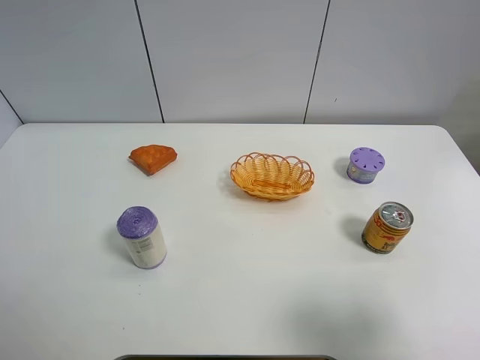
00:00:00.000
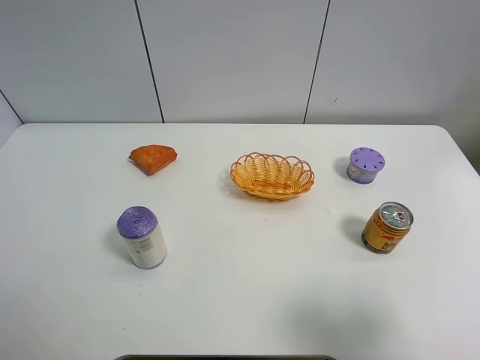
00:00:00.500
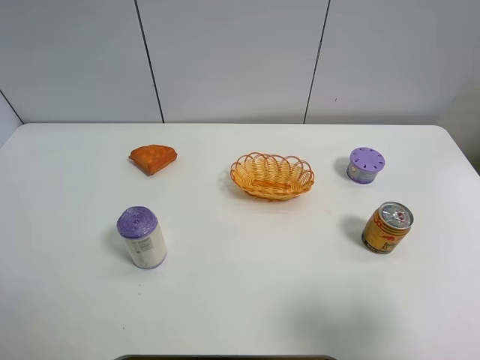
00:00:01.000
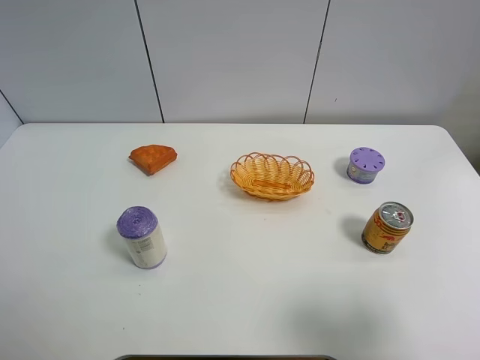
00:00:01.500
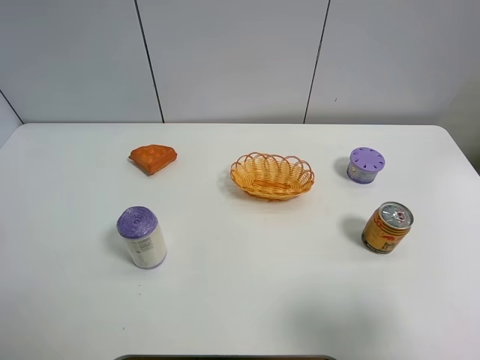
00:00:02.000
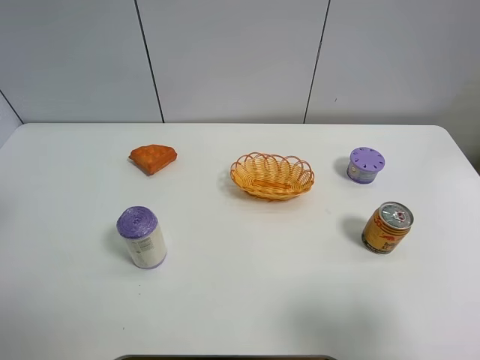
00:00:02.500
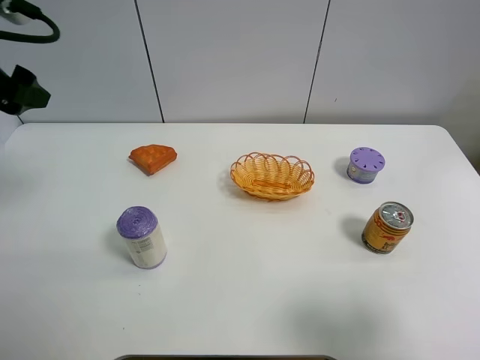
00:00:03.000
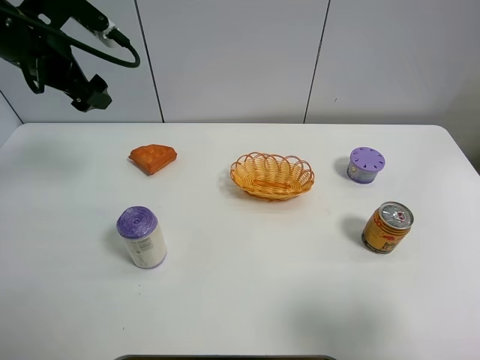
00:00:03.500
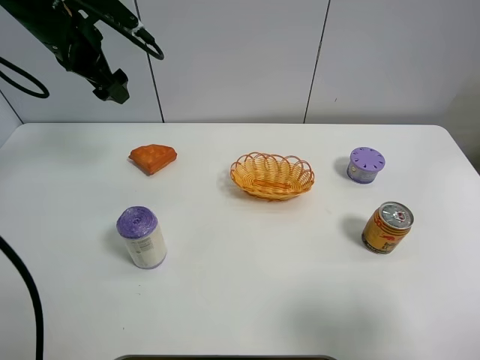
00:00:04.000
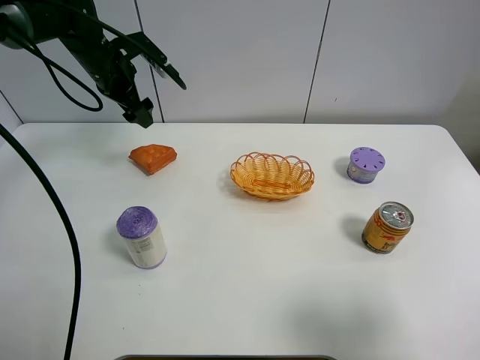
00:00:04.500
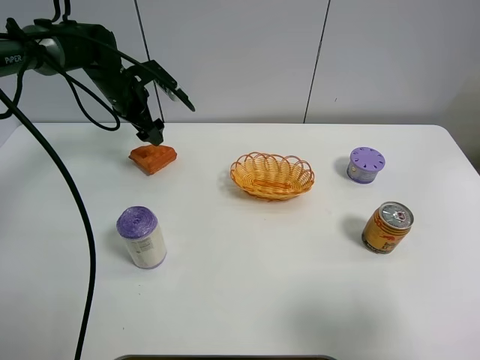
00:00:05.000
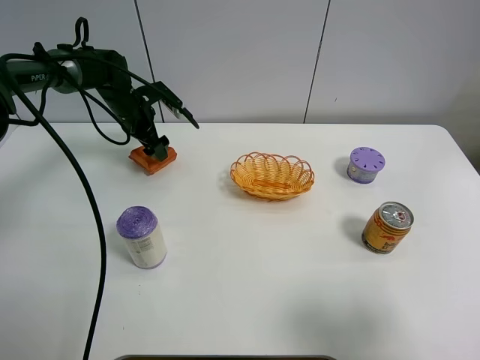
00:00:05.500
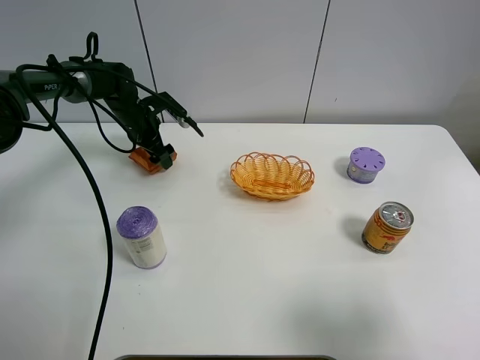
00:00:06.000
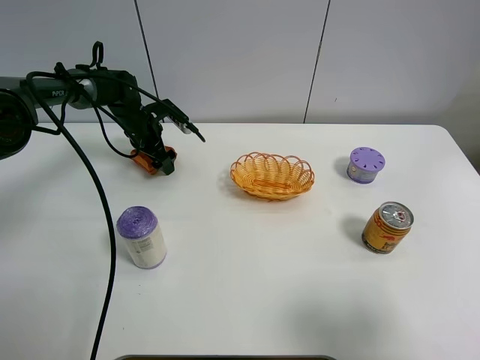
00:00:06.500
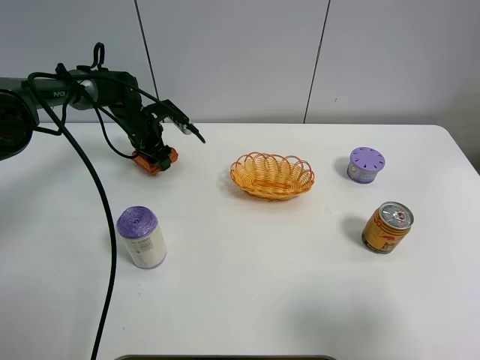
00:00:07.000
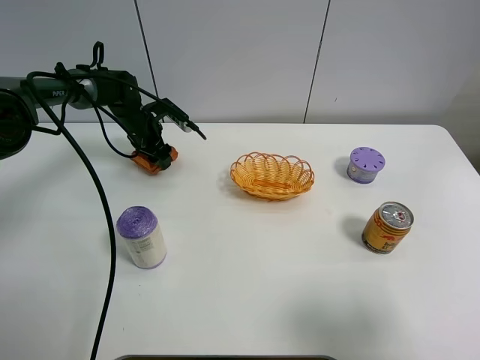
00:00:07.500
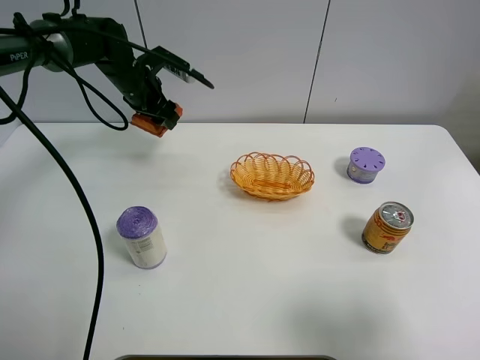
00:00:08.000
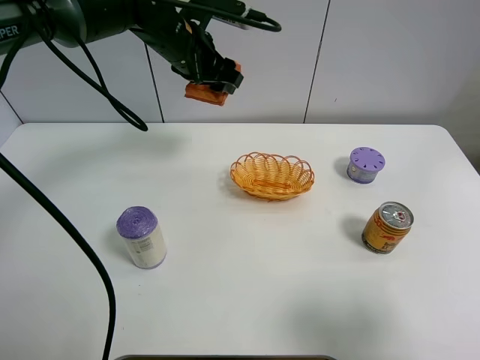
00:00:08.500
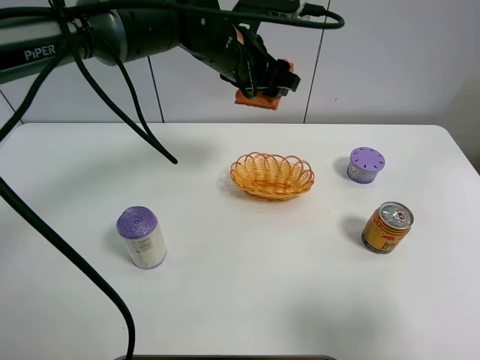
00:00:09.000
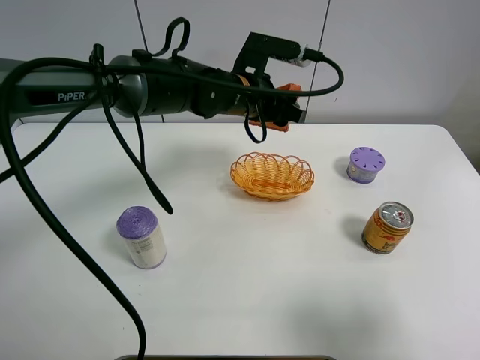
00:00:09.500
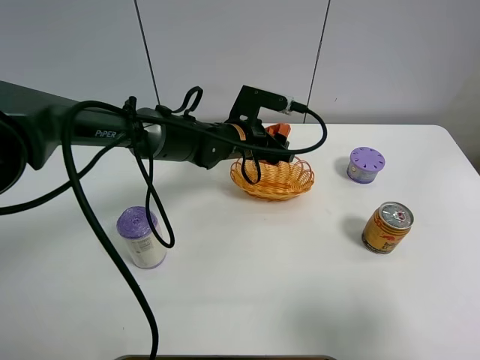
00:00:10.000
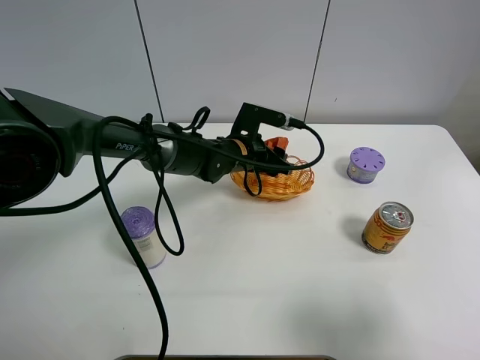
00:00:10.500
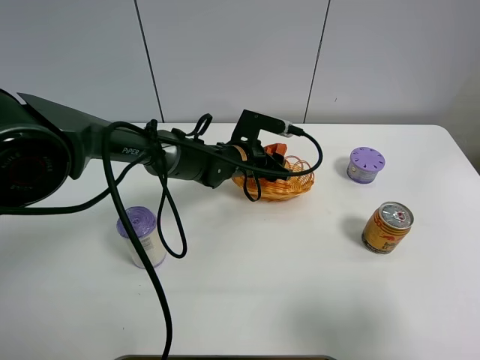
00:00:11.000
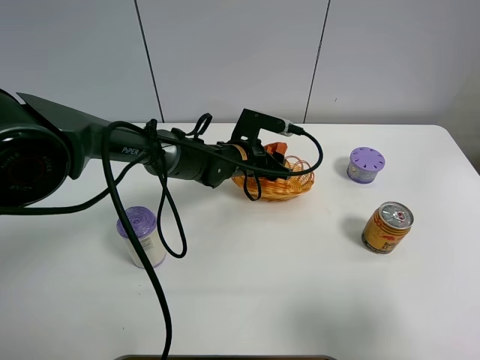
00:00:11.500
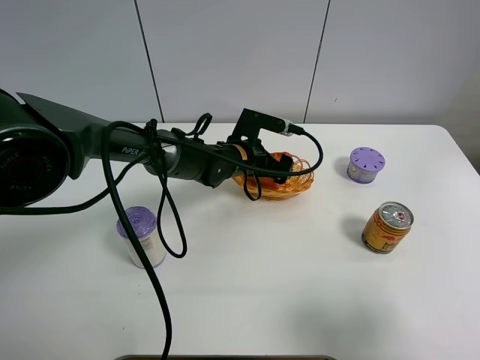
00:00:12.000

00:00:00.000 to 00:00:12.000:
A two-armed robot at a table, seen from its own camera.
Task of the whole recording: Put the bakery in the basket.
00:00:02.000 to 00:00:04.000: The left gripper goes approximately 35 cm forward.
00:00:04.000 to 00:00:06.000: The left gripper is displaced downward by some 20 cm.
00:00:06.000 to 00:00:08.000: The left gripper travels upward by about 10 cm, and closes up.
00:00:08.000 to 00:00:10.000: The left gripper moves to the right, backward and downward, about 20 cm.
00:00:10.000 to 00:00:12.000: The left gripper opens.

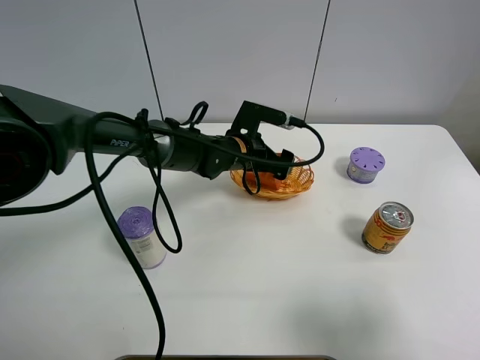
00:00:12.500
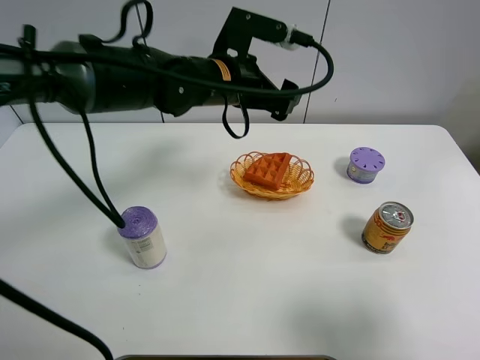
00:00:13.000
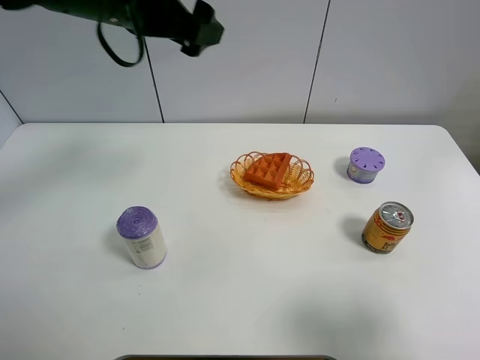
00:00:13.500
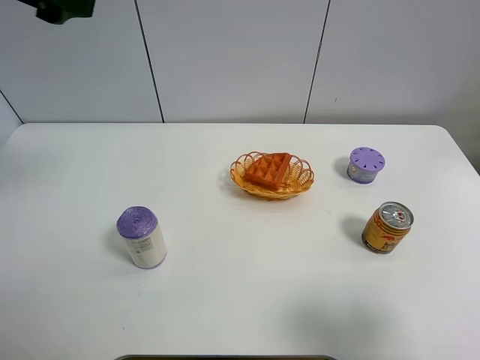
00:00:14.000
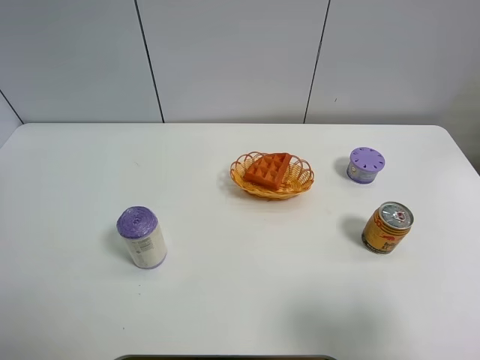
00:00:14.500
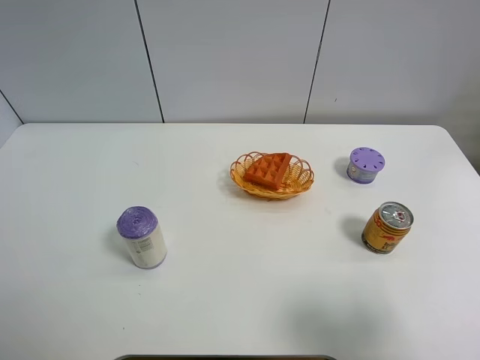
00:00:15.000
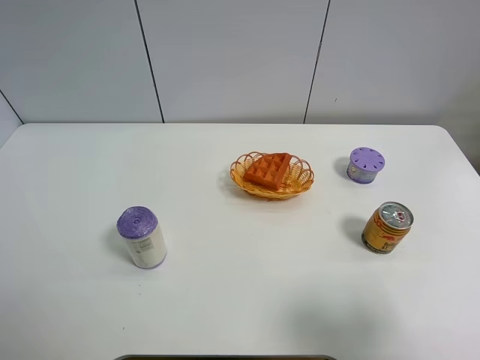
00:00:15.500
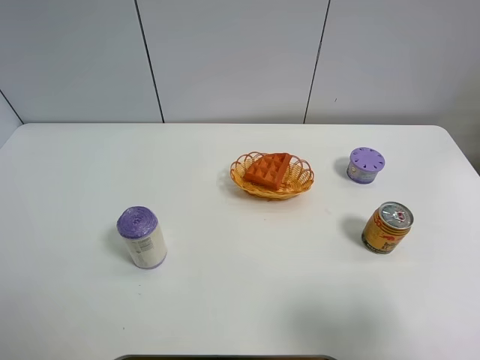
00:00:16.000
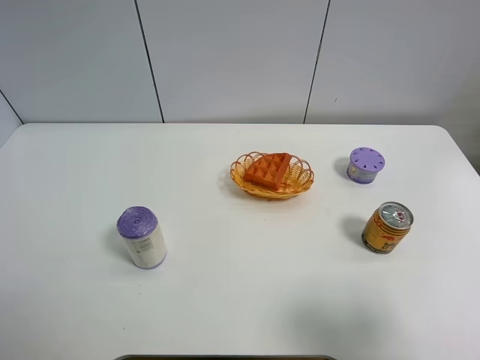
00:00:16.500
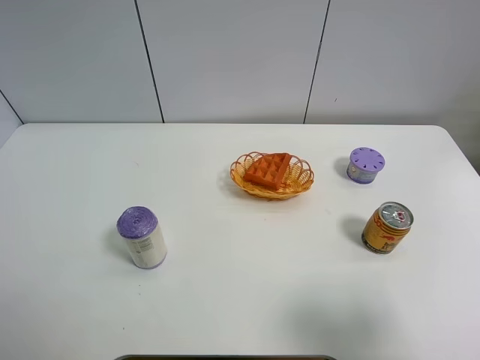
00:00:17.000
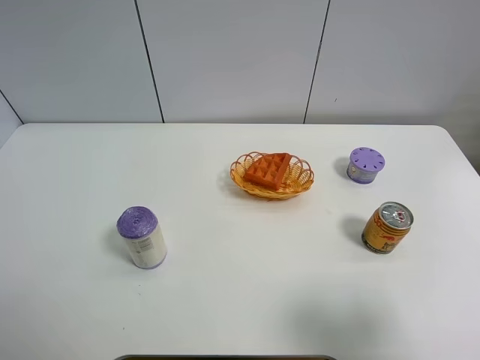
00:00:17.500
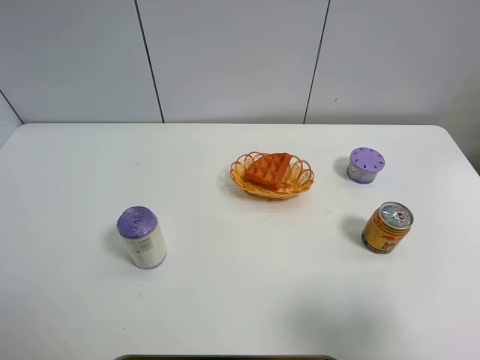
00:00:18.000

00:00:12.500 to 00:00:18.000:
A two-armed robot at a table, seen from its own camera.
Task of the whole recording: Put the bakery in the basket.
00:00:12.500 to 00:00:14.500: The left gripper shifts about 50 cm upward, to the left and backward.

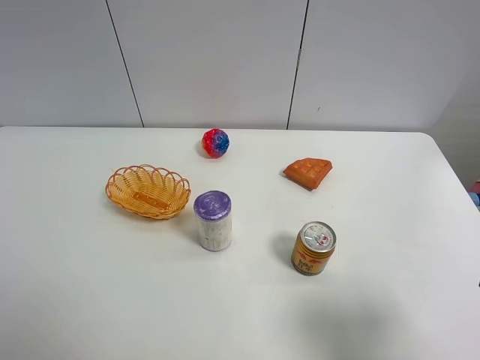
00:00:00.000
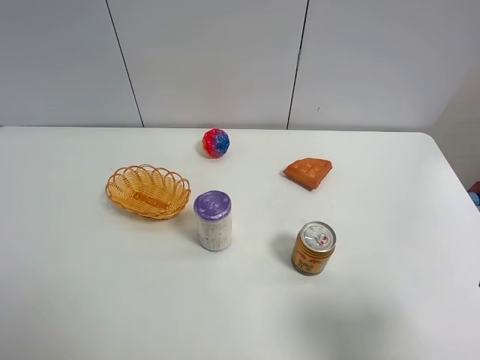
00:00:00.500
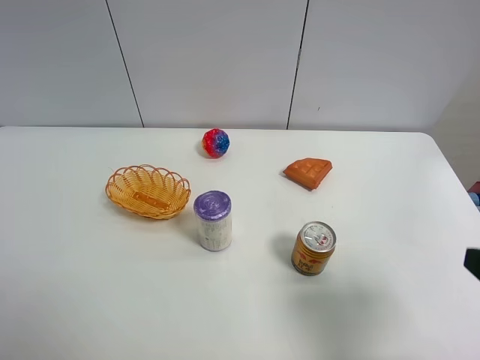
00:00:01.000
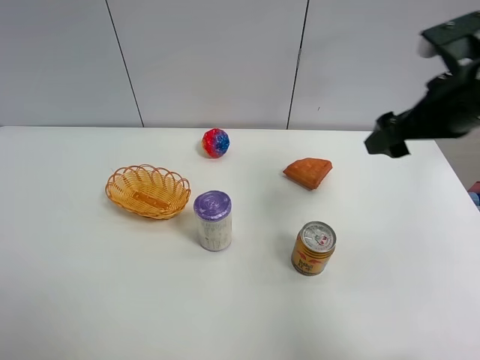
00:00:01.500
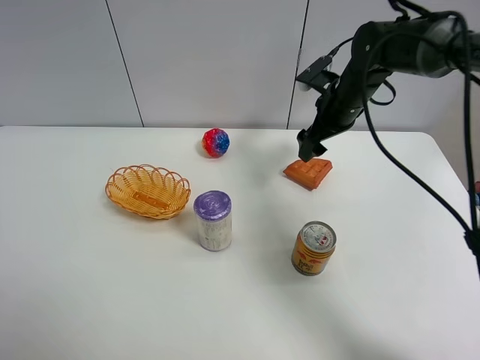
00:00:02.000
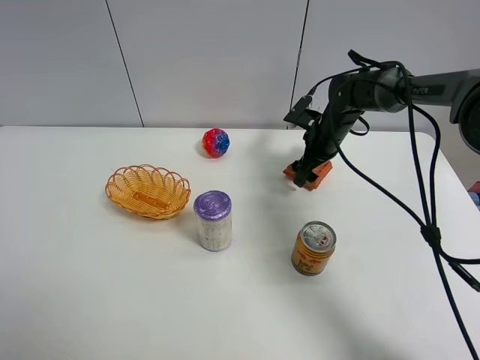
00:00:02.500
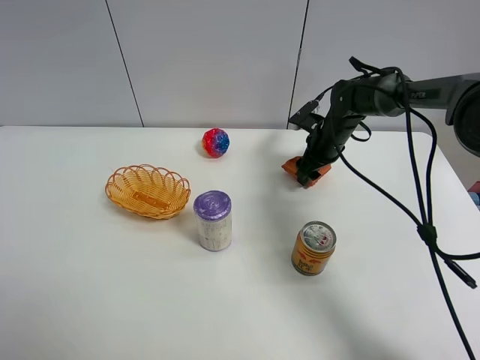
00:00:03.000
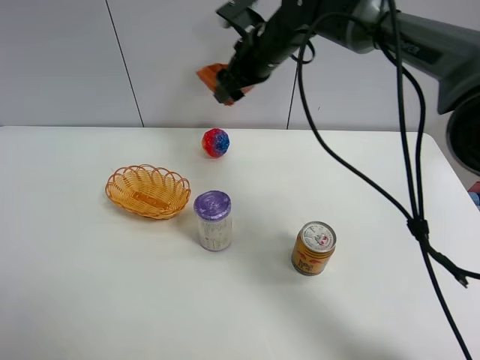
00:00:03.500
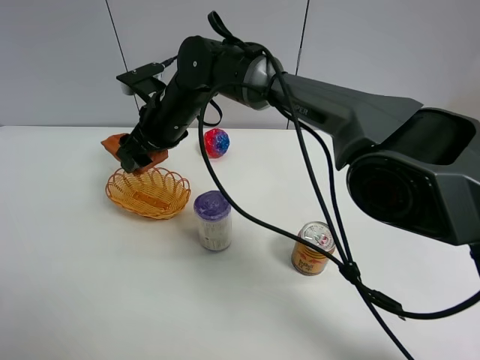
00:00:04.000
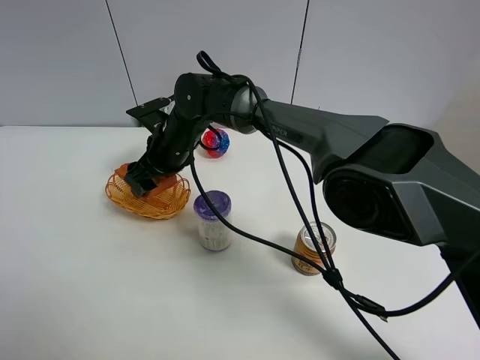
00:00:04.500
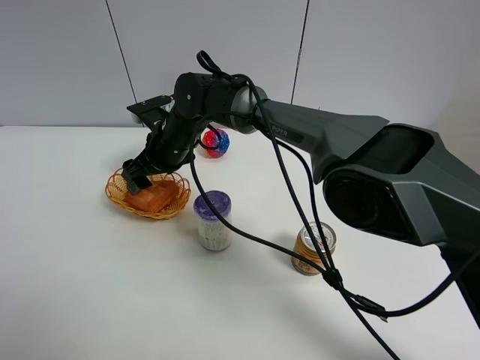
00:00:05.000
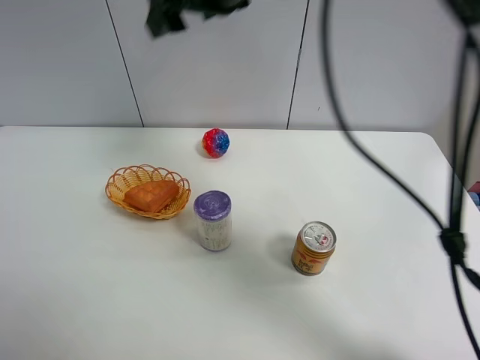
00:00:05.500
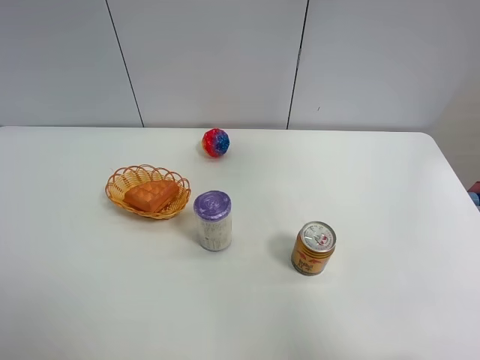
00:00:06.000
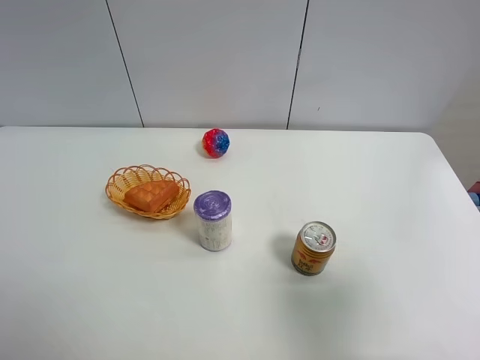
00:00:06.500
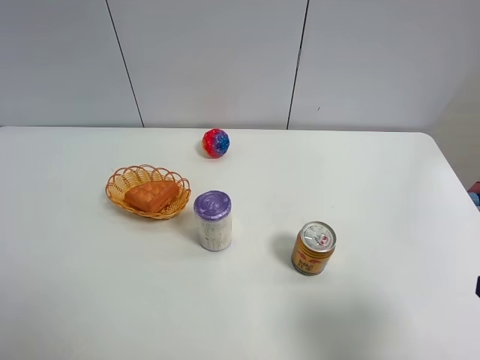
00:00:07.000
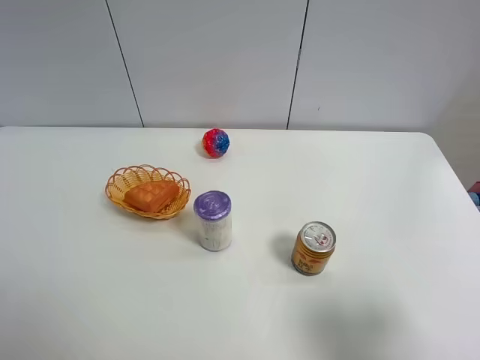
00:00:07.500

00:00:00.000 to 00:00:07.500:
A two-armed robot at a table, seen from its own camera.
Task of the whole recording: Put the bakery in the basket.
Step, 00:00:00.000 to 00:00:02.500: Grasp the bread with right gripper.
Step, 00:00:03.000 to 00:00:05.000: Place the bread in the basket with right gripper.
00:00:00.000 to 00:00:02.000: The right gripper moves forward, approximately 40 cm.
00:00:02.000 to 00:00:04.000: The right gripper moves to the left, approximately 25 cm, and closes its fingers.
00:00:04.000 to 00:00:05.500: The right gripper is displaced upward and to the right by approximately 25 cm, and opens its fingers.
00:00:05.500 to 00:00:07.500: The right gripper shifts approximately 50 cm backward, to the right and downward.
